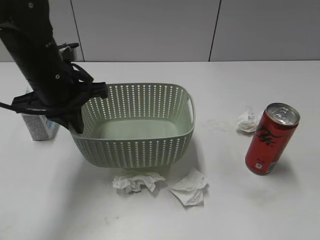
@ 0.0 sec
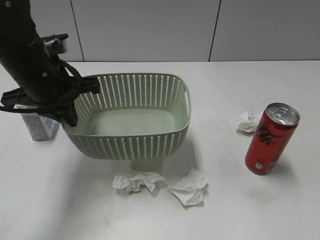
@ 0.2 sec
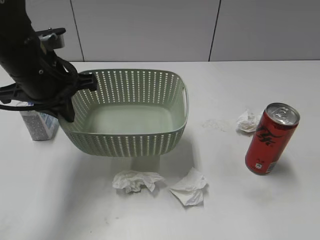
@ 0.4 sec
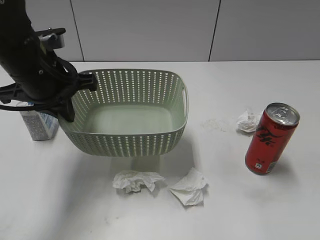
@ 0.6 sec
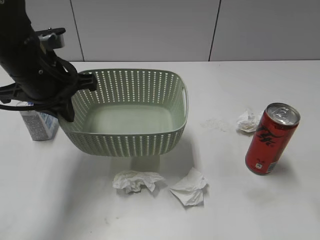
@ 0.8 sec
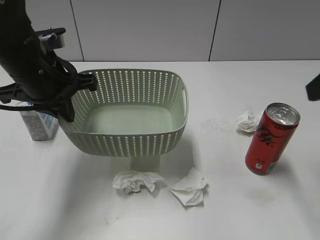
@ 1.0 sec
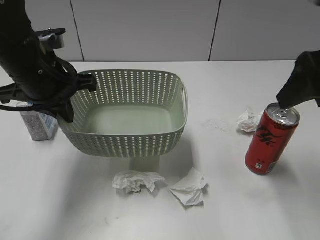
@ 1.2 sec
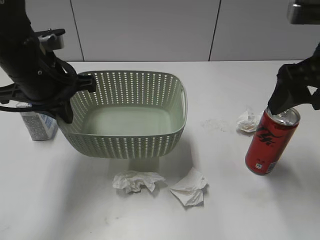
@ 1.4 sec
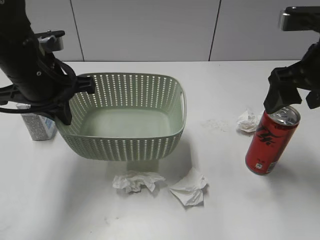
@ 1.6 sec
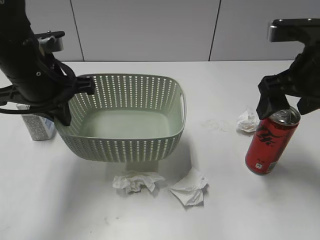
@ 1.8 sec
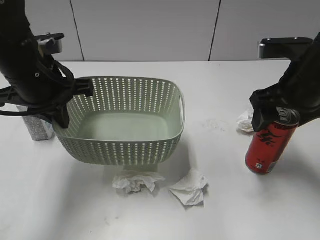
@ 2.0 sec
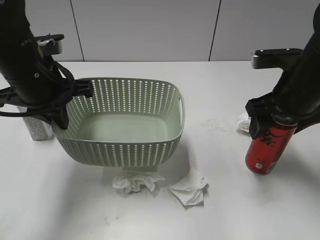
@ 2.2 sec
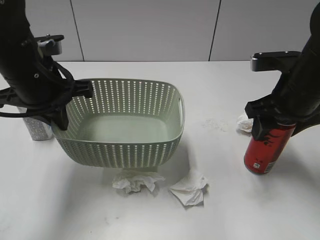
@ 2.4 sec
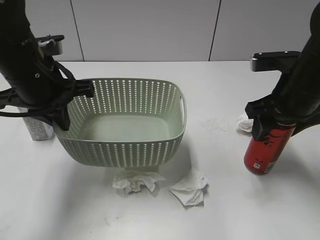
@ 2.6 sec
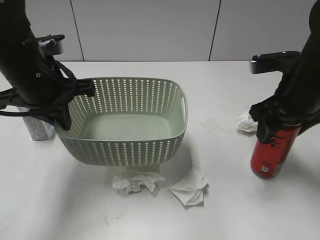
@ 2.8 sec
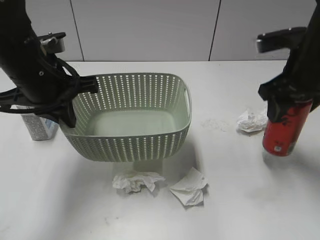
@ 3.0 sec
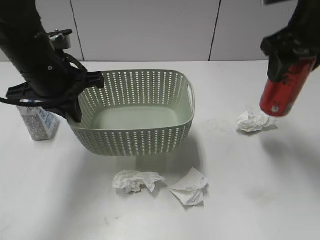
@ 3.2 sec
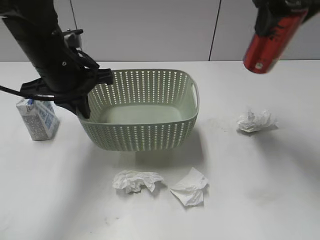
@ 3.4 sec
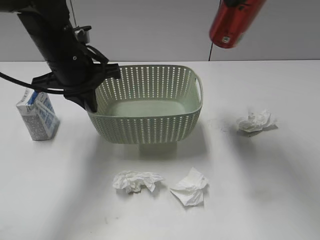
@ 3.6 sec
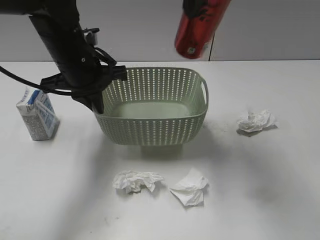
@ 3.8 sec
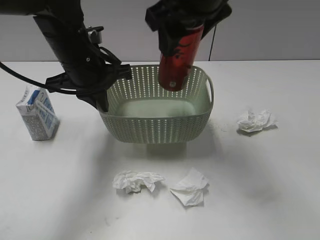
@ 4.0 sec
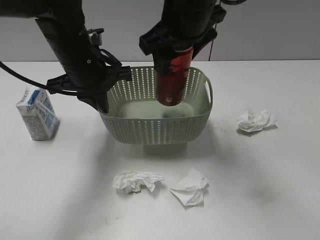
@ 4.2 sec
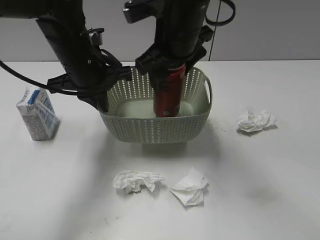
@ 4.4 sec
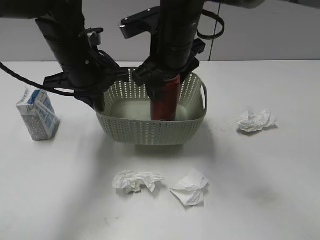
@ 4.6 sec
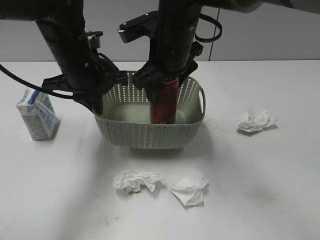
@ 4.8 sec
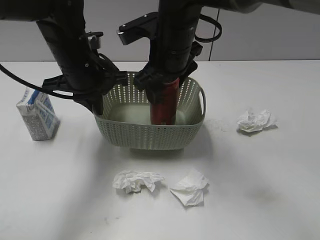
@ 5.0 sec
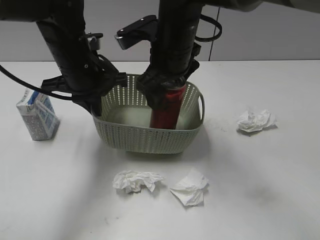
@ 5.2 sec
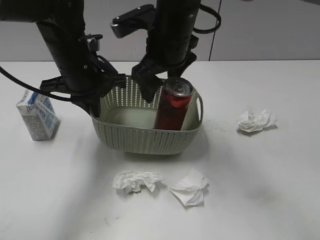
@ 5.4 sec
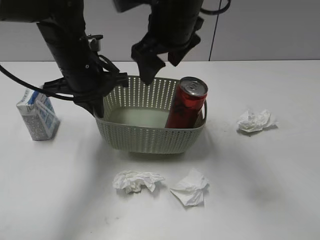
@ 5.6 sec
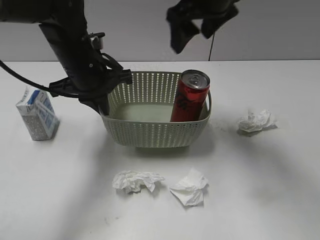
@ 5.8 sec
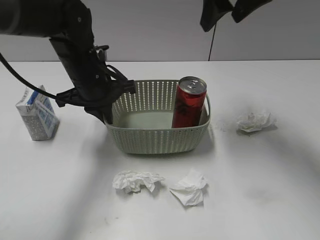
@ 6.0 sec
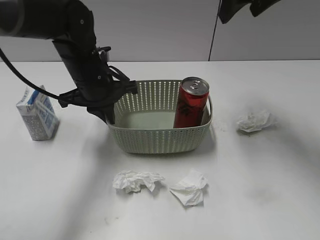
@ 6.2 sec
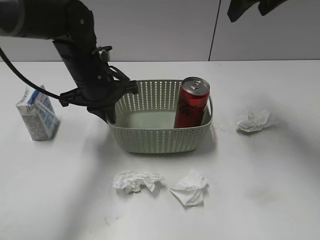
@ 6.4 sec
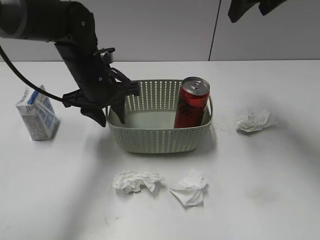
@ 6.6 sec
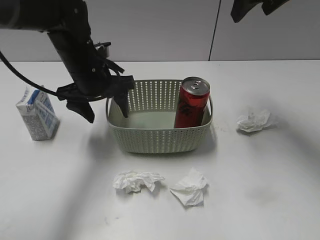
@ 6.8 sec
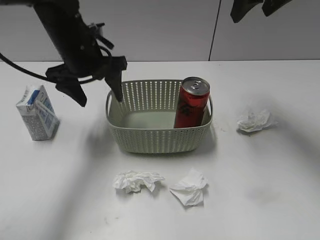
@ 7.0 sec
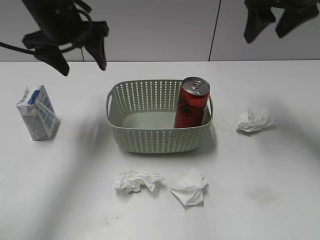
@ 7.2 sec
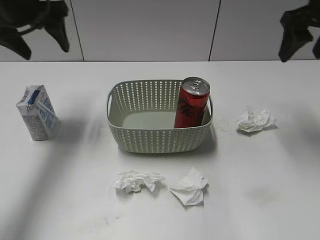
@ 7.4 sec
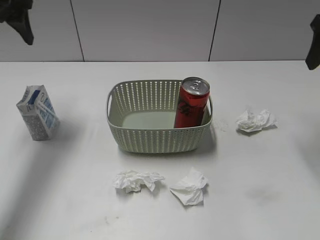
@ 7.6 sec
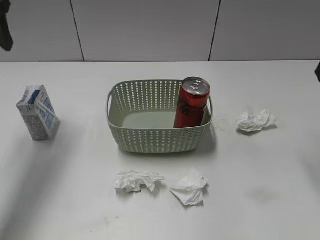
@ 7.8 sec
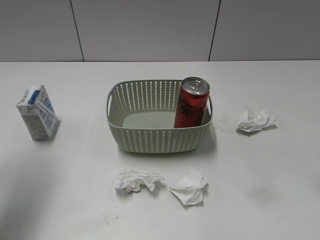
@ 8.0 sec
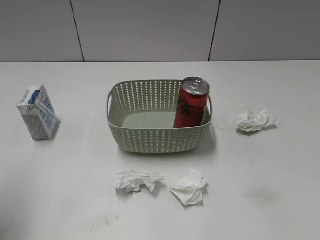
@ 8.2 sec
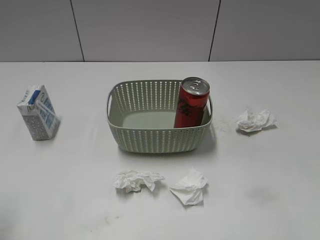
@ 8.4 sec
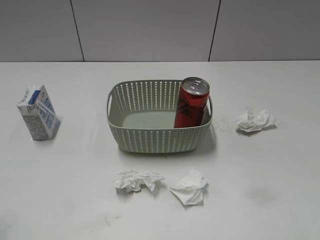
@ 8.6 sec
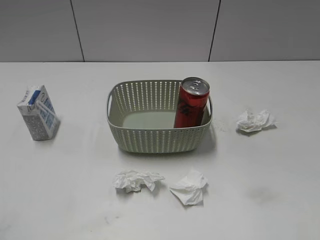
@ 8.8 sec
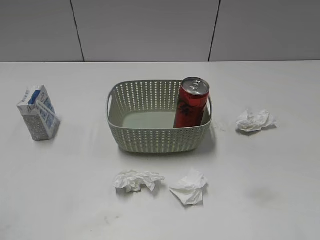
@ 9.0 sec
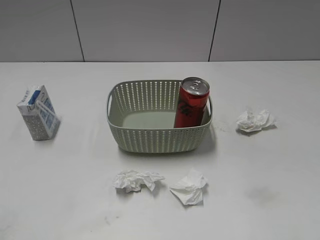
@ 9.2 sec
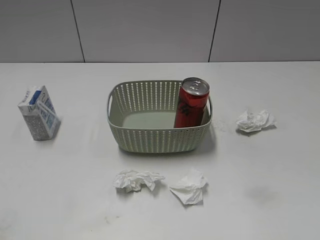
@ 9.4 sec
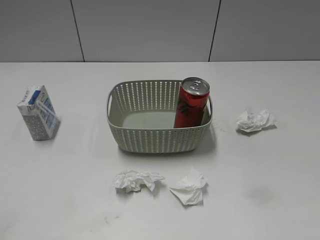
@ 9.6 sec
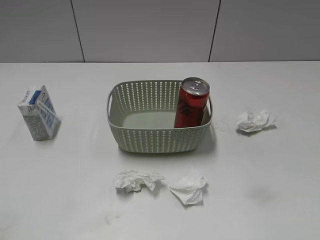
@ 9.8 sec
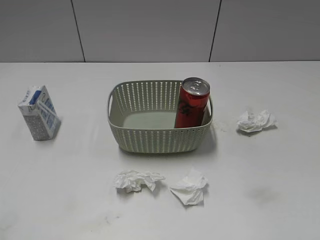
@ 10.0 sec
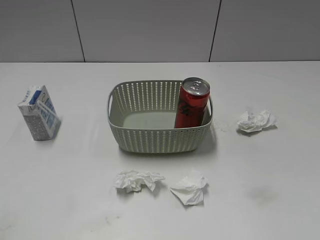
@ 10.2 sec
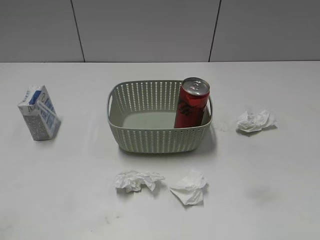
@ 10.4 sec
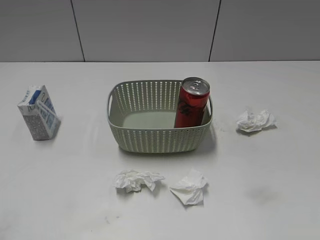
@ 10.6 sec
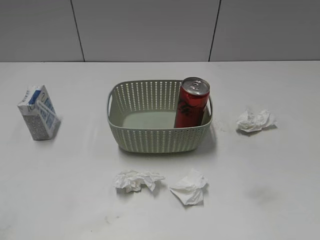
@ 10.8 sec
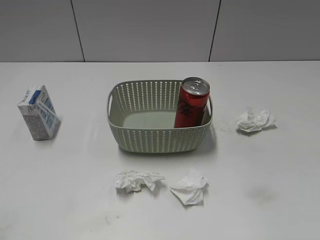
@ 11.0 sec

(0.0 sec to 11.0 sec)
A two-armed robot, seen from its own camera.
Step, 1.0 sec - 2.6 sec: Grasp the cola can with right gripper.
Step, 2.8 sec - 5.2 sec: Place the cola can in the basket with right gripper.
Step, 5.4 sec - 6.6 sec: Place the basket on the table with left gripper.
0.0 sec - 1.6 sec: The right gripper shifts some 25 cm forward, and opens.
1.6 sec - 3.2 sec: The right gripper goes some 5 cm forward, goes downward and returns, roughly 5 cm each way, and closes.
3.2 sec - 4.8 sec: The right gripper moves to the left, approximately 20 cm; the left gripper ends up roughly 5 cm from where it was.
4.8 sec - 6.2 sec: The right gripper shifts about 20 cm to the right and upward, and opens up.
6.2 sec - 7.8 sec: The right gripper heads to the right and backward, covering approximately 15 cm, while the left gripper goes approximately 25 cm upward and to the left, and opens.
7.8 sec - 9.4 sec: The two grippers go roughly 30 cm backward.
